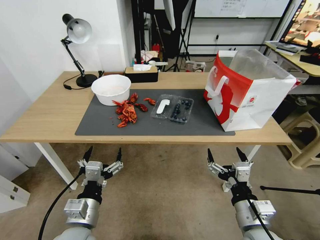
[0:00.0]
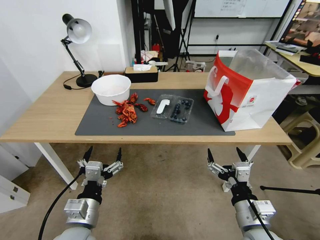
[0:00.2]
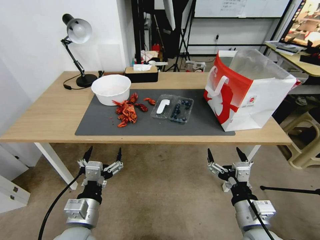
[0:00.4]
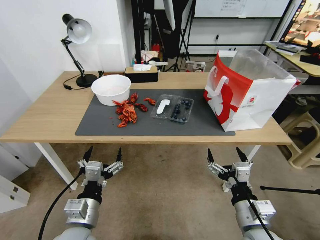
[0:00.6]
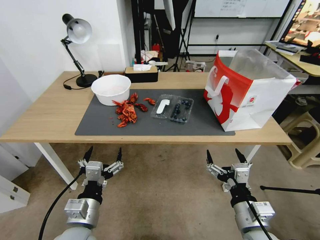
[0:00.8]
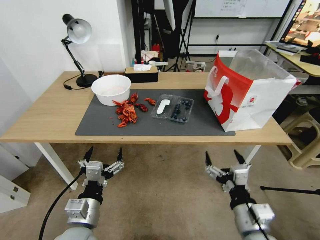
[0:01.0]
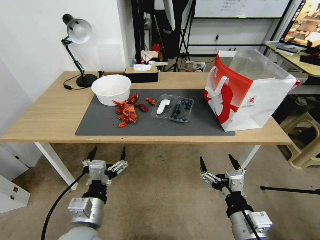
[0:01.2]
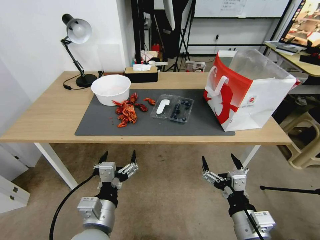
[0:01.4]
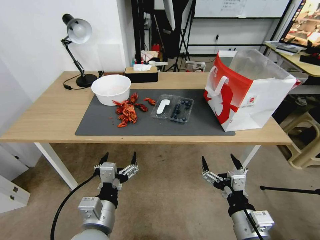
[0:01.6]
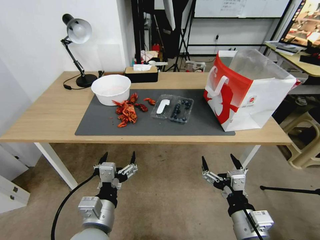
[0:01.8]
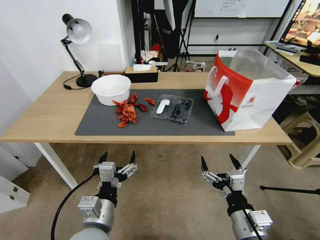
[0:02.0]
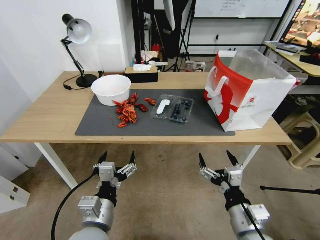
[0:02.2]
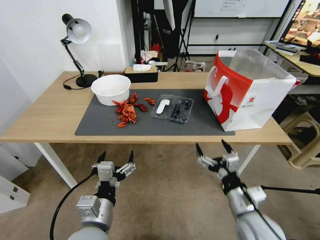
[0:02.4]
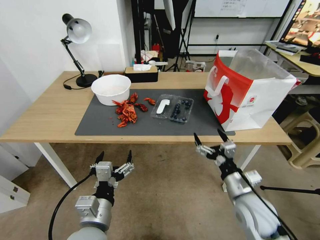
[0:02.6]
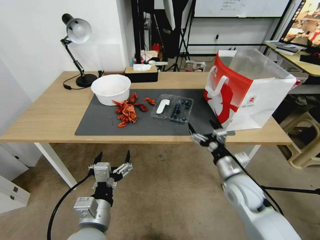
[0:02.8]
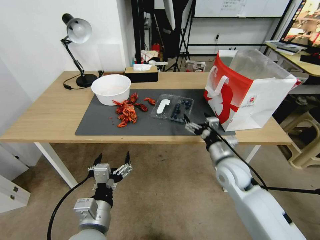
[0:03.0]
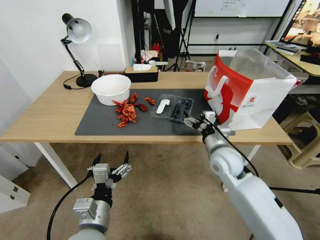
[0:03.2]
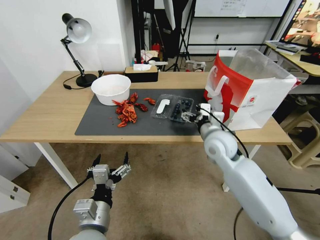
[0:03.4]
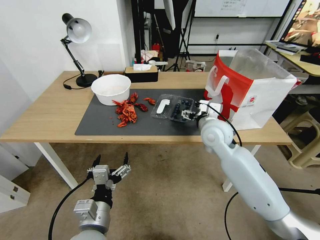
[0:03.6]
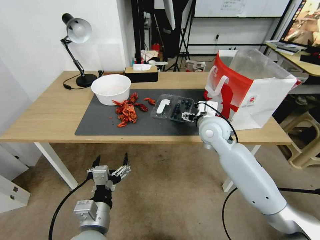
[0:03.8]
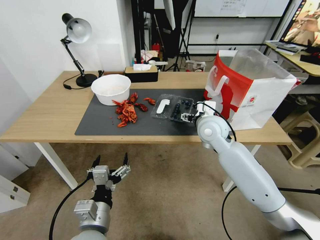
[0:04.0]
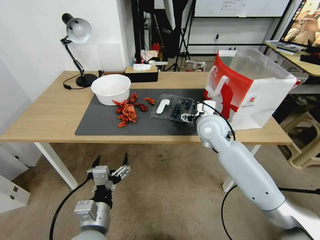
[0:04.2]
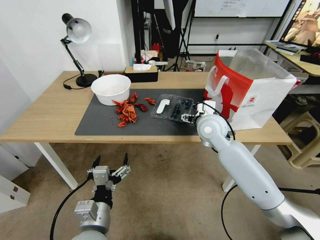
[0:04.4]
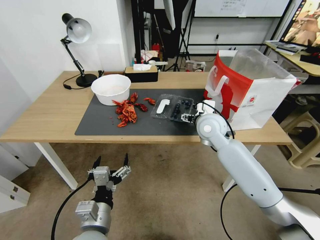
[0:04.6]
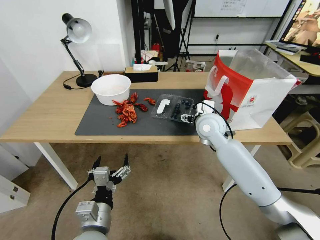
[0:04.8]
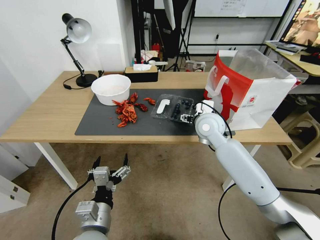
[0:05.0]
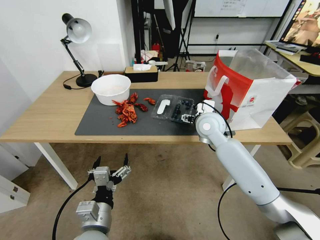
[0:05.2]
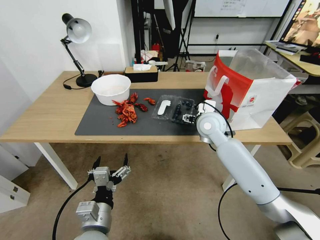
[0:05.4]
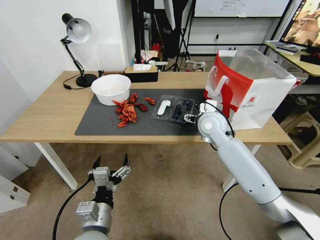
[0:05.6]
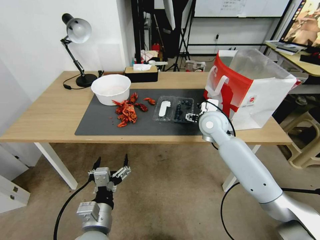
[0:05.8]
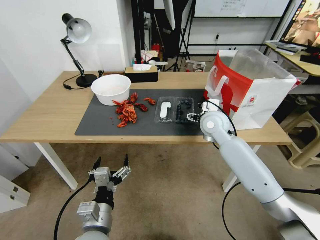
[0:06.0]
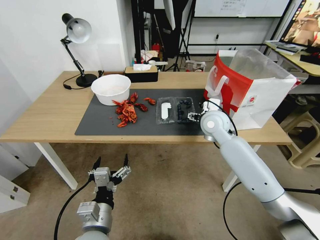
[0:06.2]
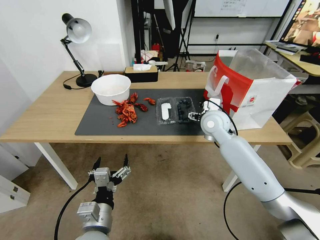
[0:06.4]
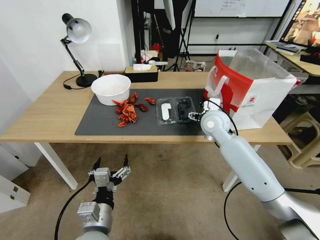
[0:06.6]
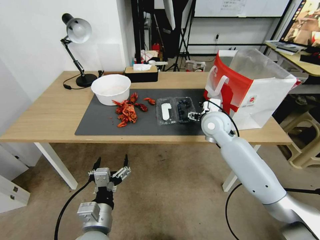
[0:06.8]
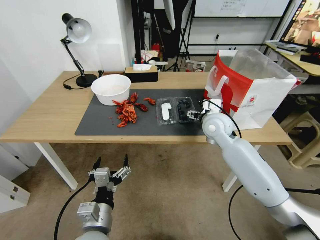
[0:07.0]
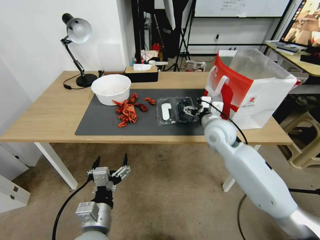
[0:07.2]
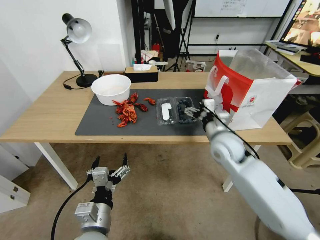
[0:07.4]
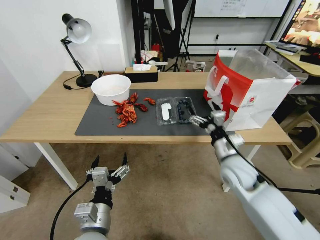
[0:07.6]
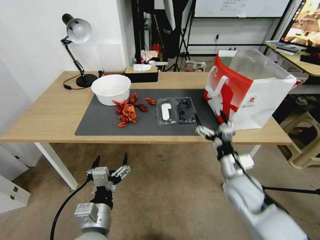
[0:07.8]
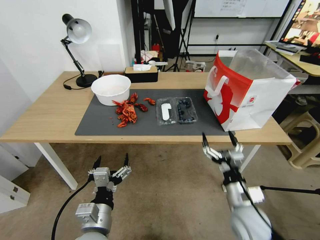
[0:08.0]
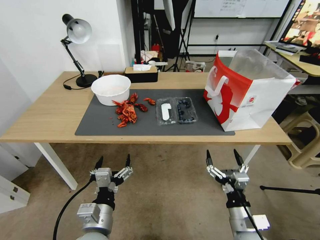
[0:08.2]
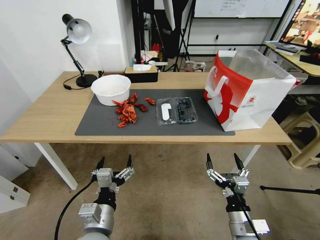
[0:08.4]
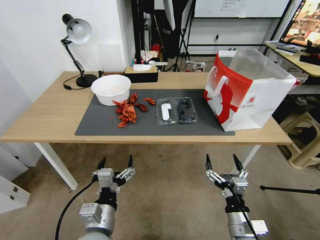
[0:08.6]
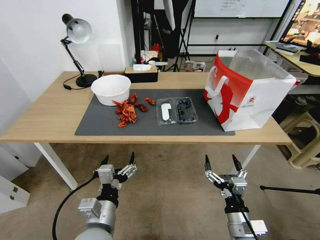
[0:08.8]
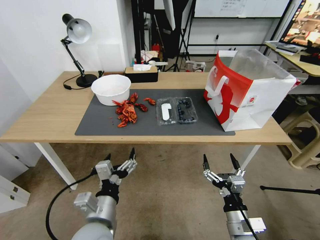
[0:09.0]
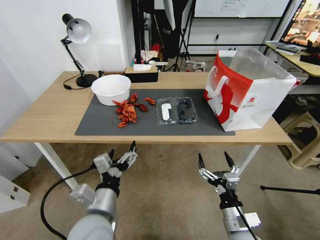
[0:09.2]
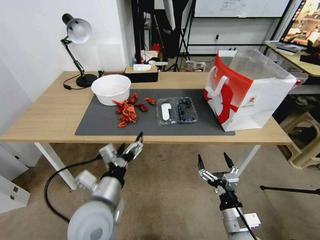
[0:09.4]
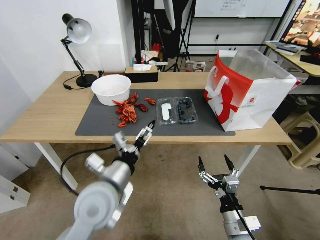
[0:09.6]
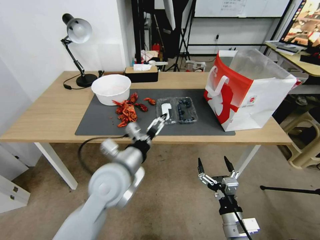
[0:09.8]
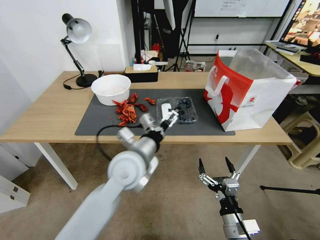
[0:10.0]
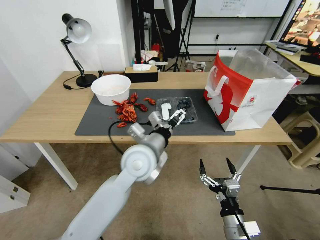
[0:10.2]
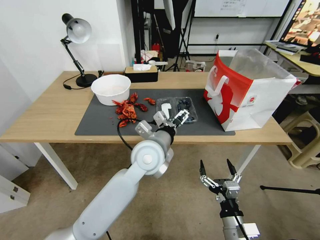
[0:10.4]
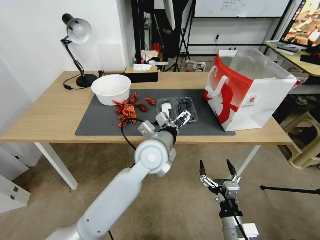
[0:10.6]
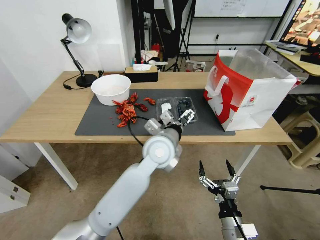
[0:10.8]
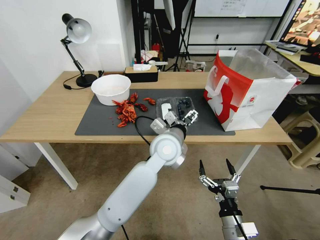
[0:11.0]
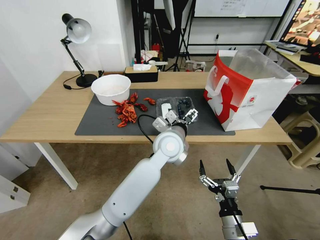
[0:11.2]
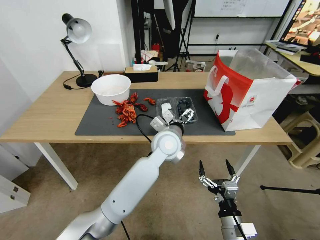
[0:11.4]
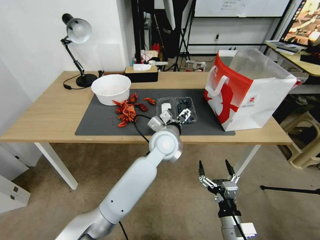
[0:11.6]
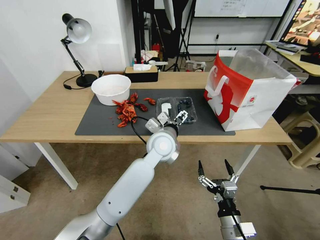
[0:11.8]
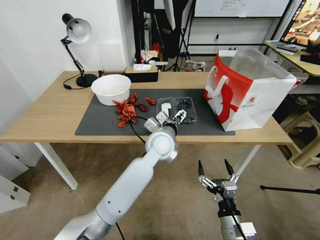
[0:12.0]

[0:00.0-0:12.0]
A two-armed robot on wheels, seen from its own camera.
Task of the whole recording: Close the takeout container lid, then place the container into the takeout bag.
0:01.6 to 0:03.0: The right gripper is displaced forward by roughly 20 cm.
0:03.0 to 0:04.4: The right gripper is displaced forward, upward and to the left by some 15 cm.
0:04.4 to 0:06.0: The grippers stay close to where they were, moving slightly.
0:06.0 to 0:07.6: The right gripper heads backward and downward, covering about 15 cm.
0:07.6 to 0:09.0: The right gripper travels backward and downward by roughly 20 cm.
0:09.0 to 0:10.4: The left gripper goes roughly 25 cm forward, to the right and upward.
0:10.4 to 0:12.0: The left gripper is displaced forward by about 5 cm.

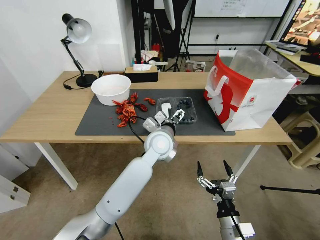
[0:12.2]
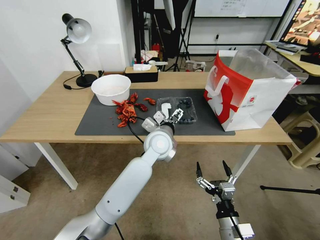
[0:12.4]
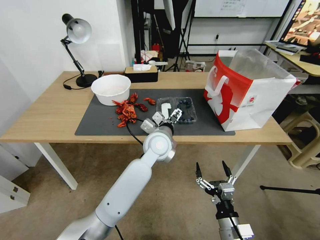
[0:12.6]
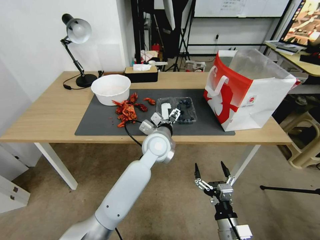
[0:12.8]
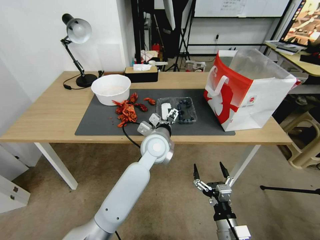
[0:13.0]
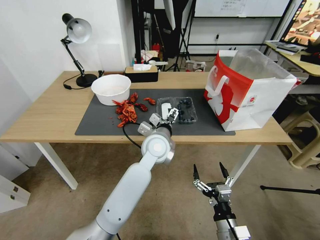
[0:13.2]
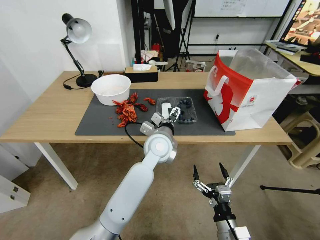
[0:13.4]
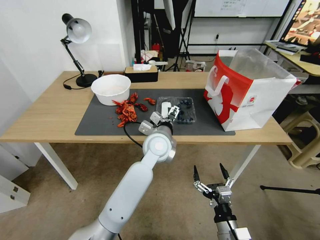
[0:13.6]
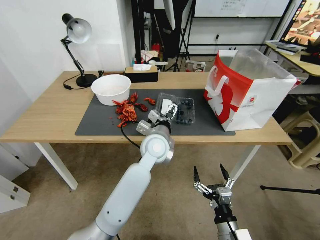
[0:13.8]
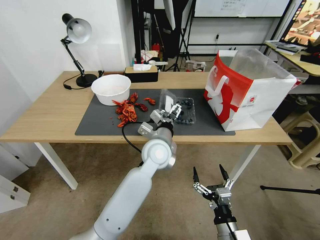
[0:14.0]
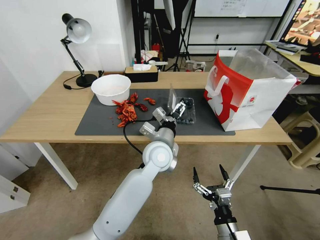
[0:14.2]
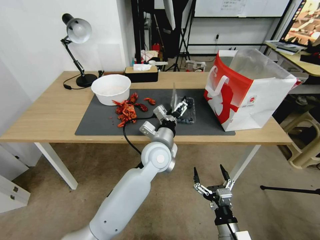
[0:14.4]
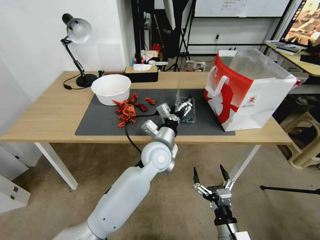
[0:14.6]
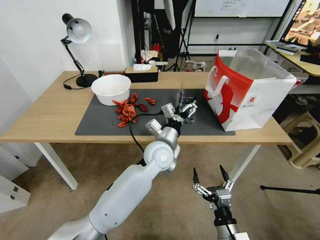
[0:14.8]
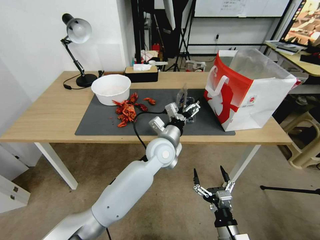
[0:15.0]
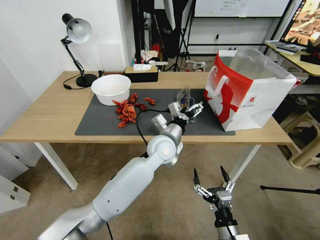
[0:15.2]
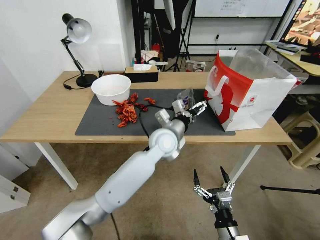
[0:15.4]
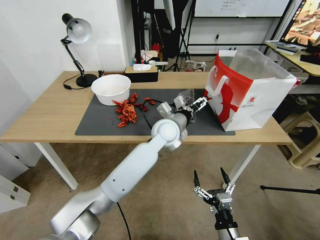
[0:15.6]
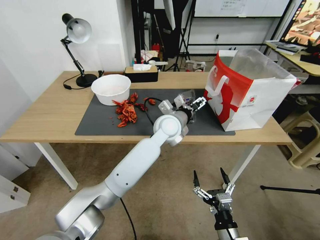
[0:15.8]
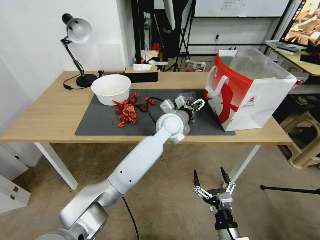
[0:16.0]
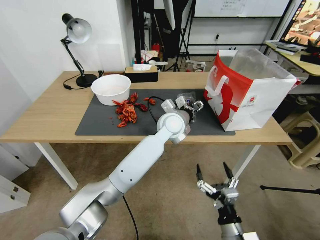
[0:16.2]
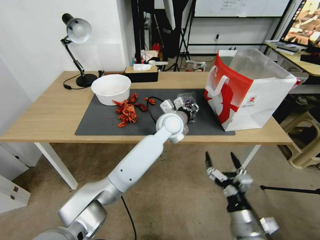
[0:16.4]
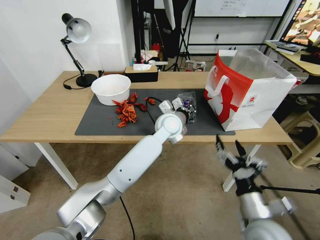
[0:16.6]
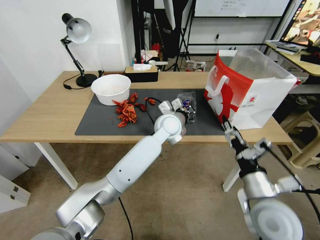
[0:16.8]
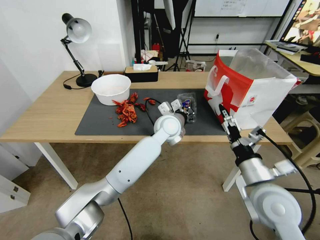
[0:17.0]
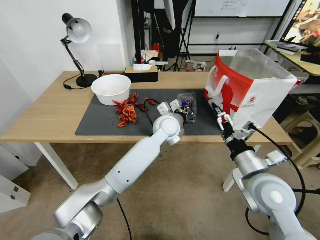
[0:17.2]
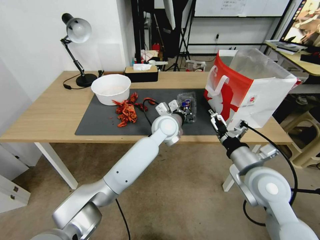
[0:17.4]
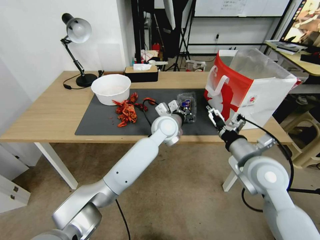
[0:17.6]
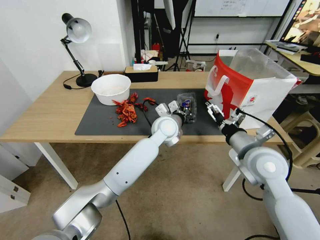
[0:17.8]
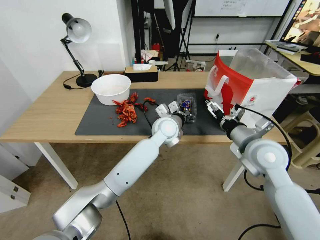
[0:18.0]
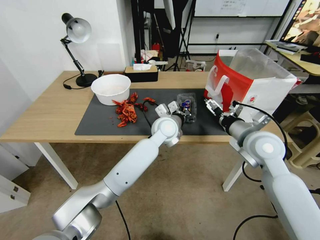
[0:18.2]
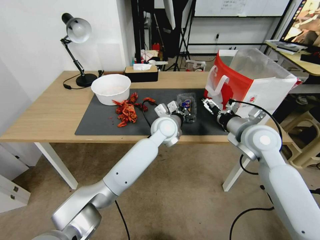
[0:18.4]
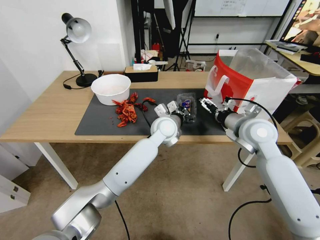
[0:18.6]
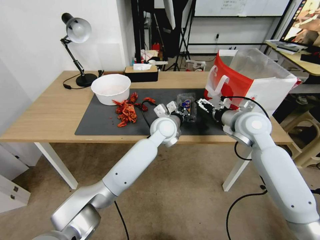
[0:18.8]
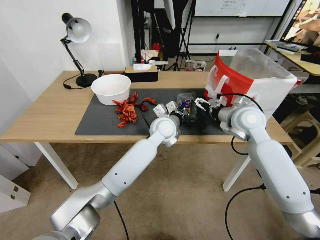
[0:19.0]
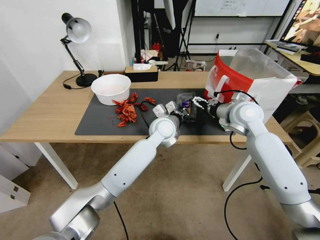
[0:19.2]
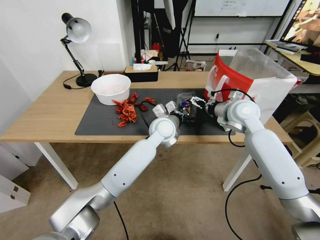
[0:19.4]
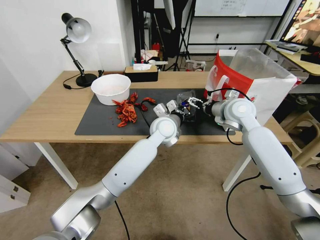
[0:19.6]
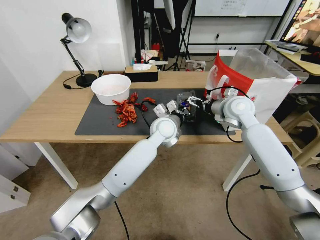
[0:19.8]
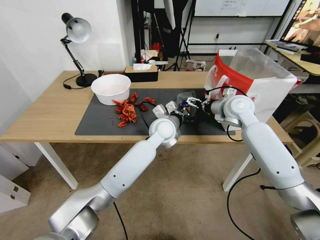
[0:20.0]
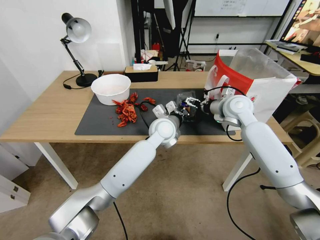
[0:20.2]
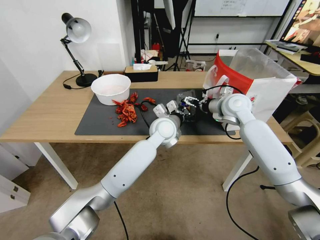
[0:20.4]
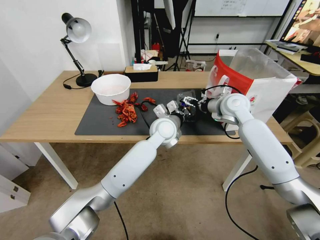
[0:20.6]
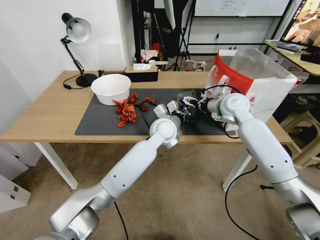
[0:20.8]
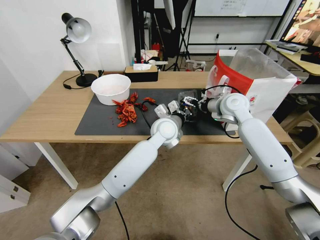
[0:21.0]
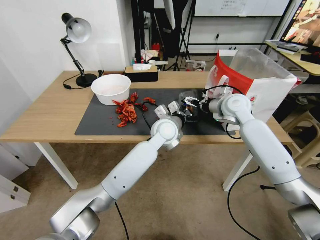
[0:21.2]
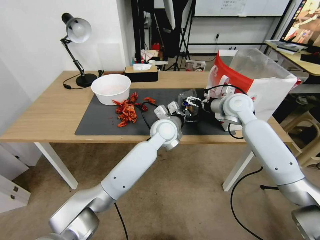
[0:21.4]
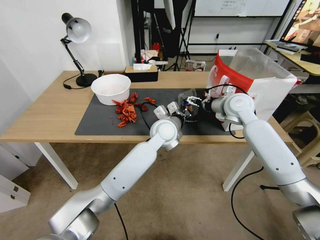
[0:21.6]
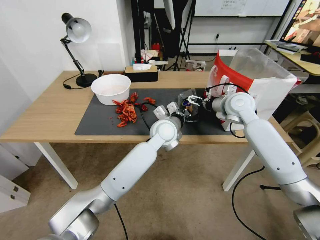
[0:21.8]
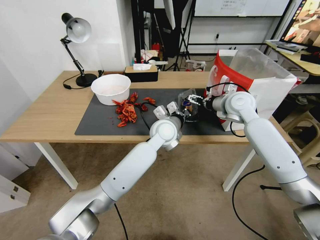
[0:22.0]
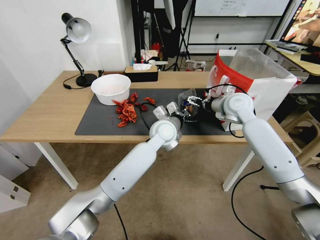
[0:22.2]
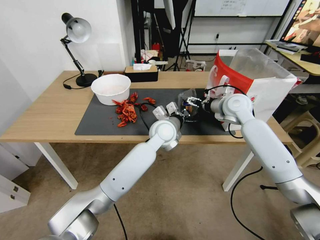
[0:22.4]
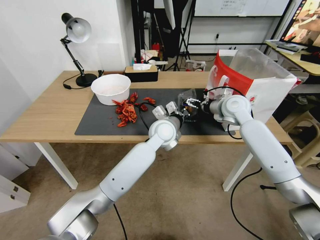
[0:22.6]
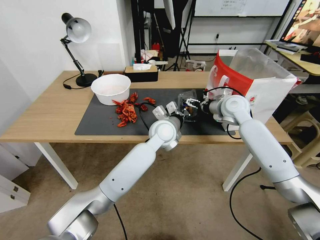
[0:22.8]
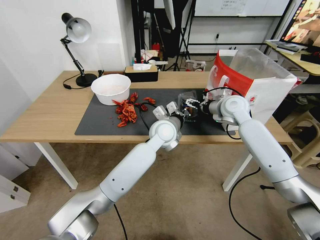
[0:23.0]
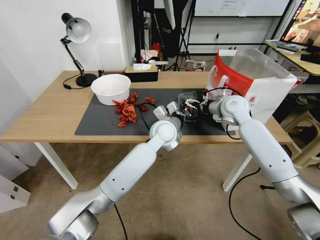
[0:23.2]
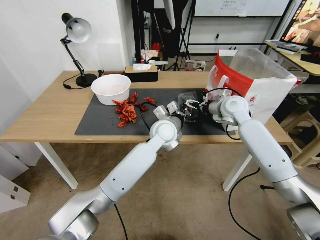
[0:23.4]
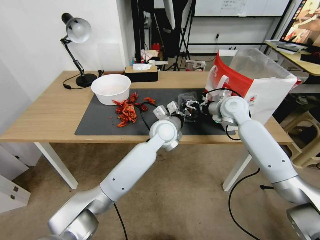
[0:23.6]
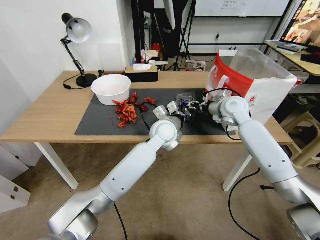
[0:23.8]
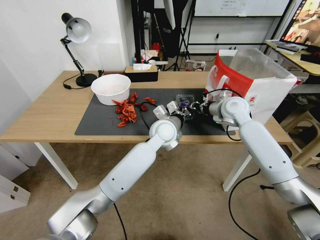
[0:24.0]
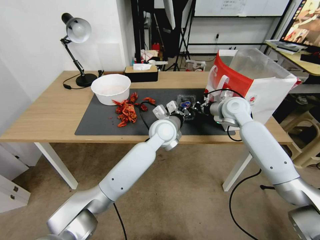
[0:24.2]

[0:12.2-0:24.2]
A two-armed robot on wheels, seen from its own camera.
Task of the whole recording: Close the takeout container lid, then place the container into the takeout bag.
0:12.2 to 0:13.8: The grippers move only a little.
0:15.2 to 0:16.6: The right gripper moves upward and forward, roughly 10 cm. The left gripper moves forward, some 5 cm, and closes its fingers.
0:16.6 to 0:18.2: The right gripper shifts roughly 20 cm forward and upward.
0:18.2 to 0:19.8: The right gripper is displaced forward by approximately 15 cm.
0:19.8 to 0:22.6: The grippers move only a little.
0:22.6 to 0:24.2: The right gripper closes up.
